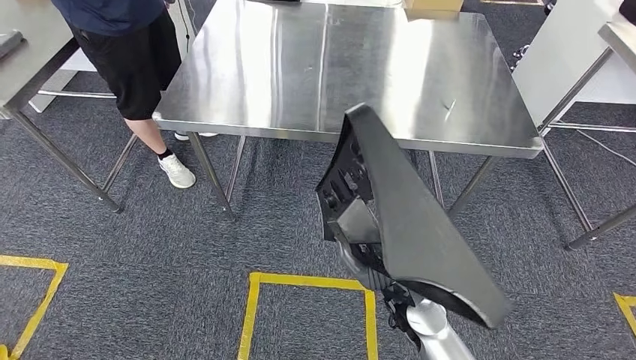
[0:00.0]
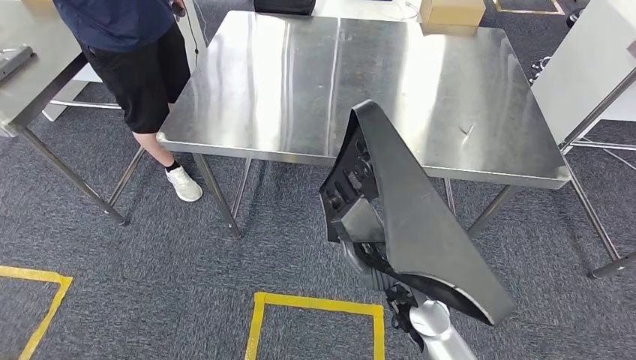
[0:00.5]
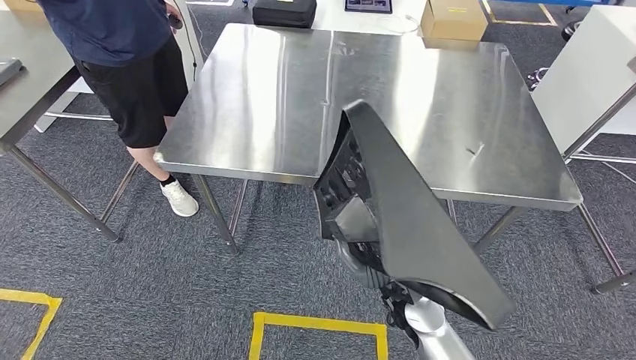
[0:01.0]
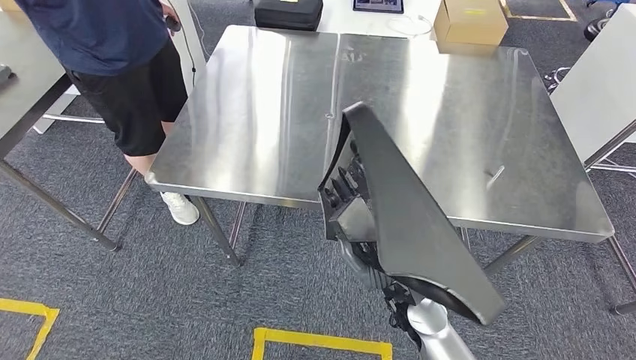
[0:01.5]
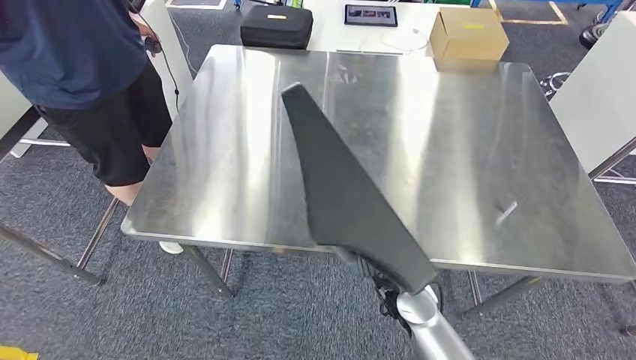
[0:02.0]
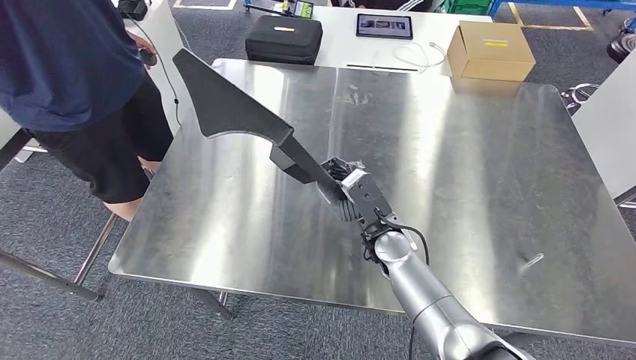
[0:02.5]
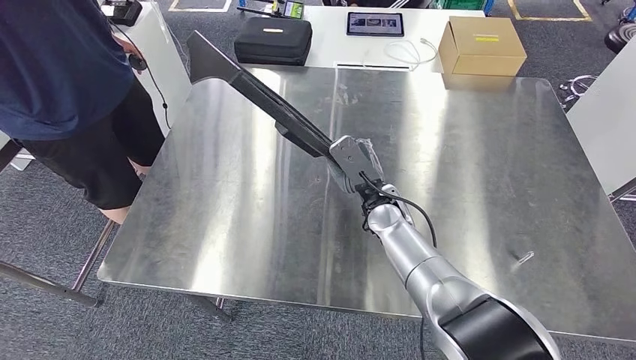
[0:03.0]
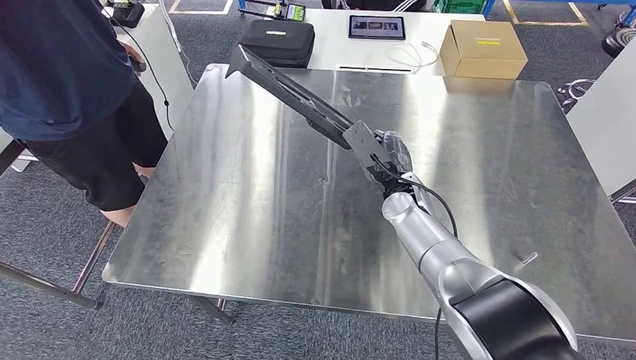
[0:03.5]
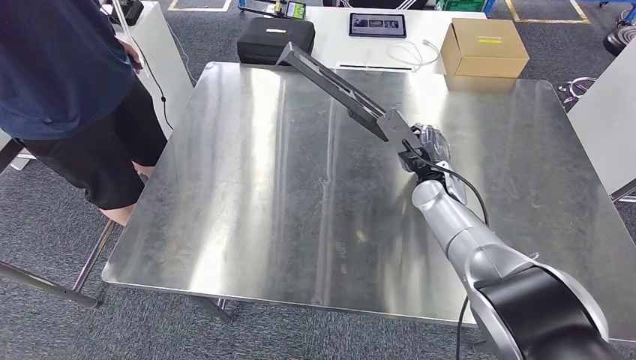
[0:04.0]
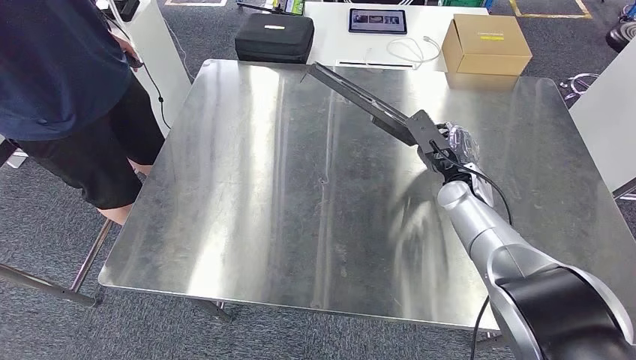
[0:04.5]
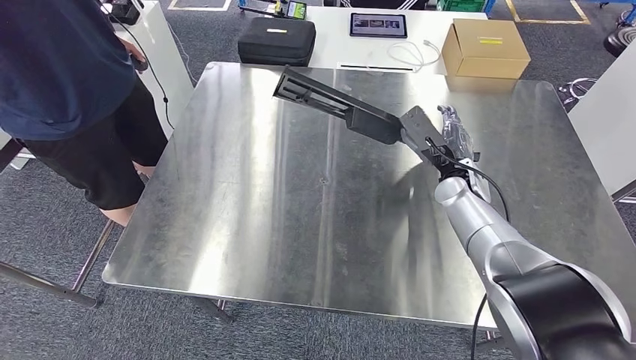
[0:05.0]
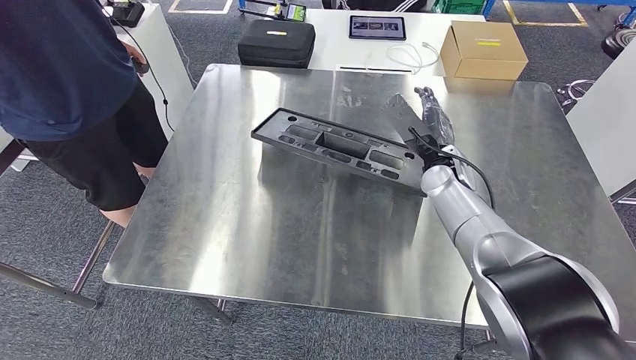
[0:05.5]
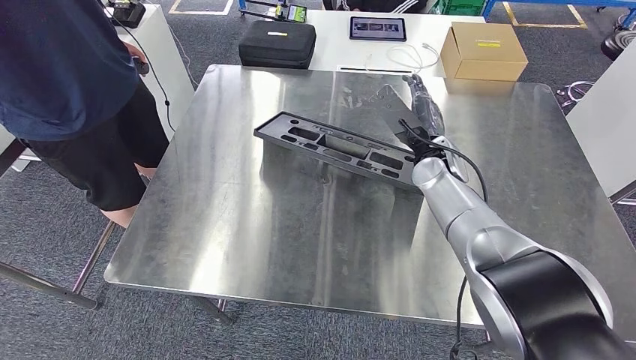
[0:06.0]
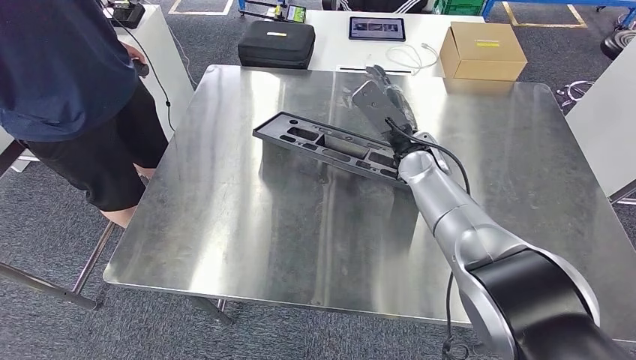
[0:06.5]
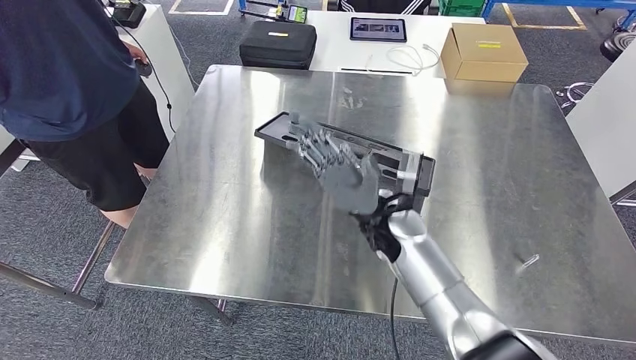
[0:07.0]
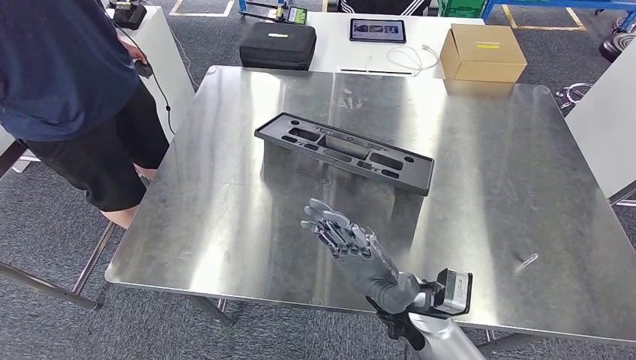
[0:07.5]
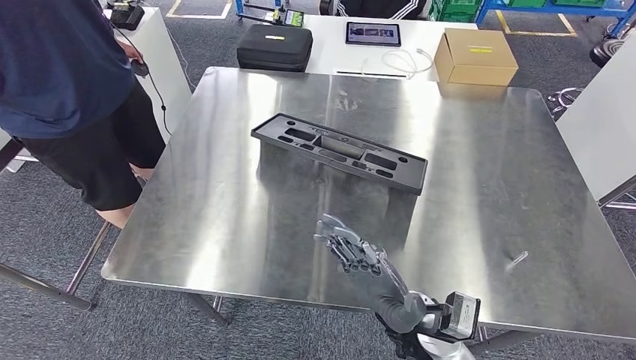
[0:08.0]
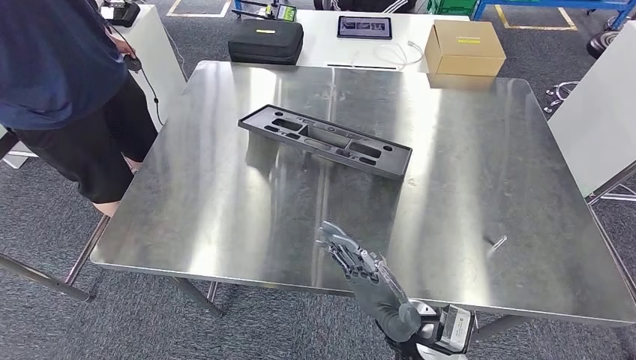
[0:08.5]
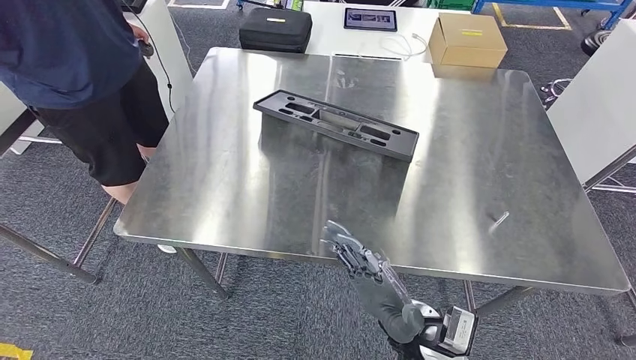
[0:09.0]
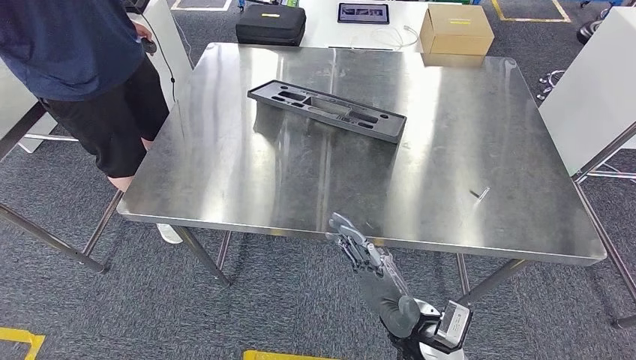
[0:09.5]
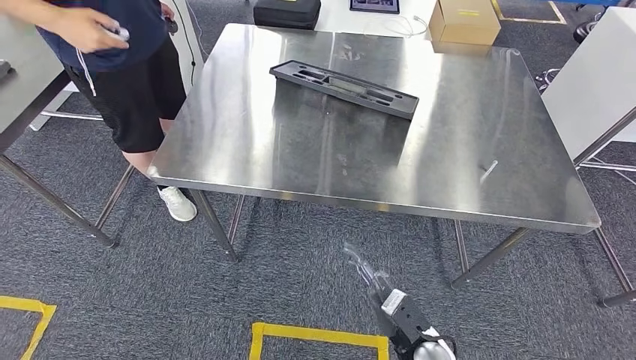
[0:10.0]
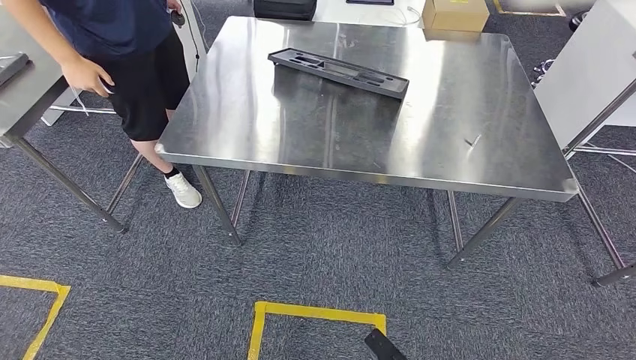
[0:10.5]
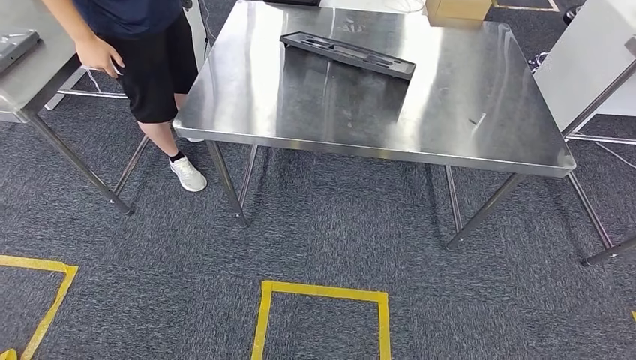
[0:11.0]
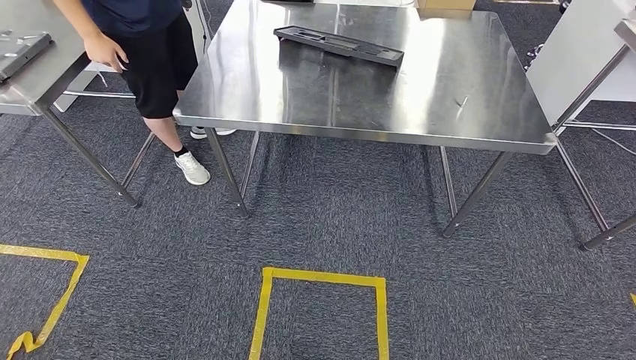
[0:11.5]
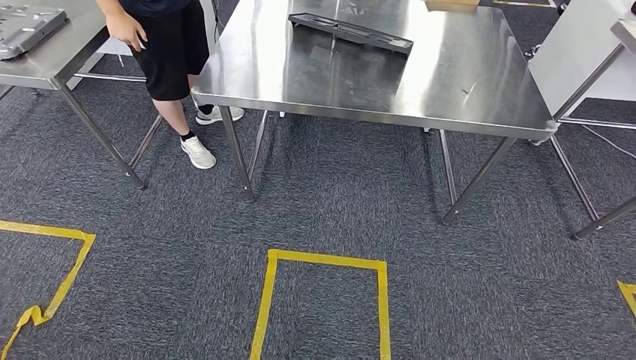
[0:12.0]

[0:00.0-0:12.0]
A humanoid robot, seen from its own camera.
Step, 0:02.0 to 0:08.5: Insert the large material into the corresponding slot on the workbench.
0:04.0 to 0:06.0: There are only small adjustments of the hands.

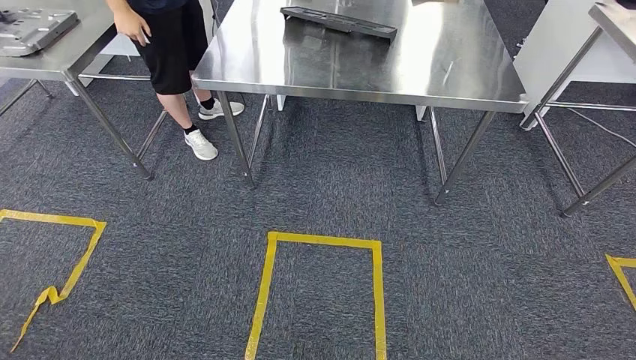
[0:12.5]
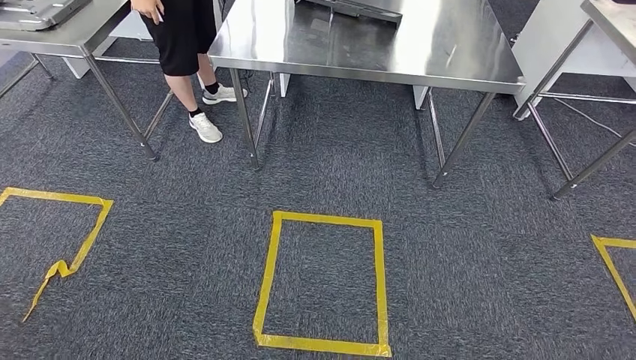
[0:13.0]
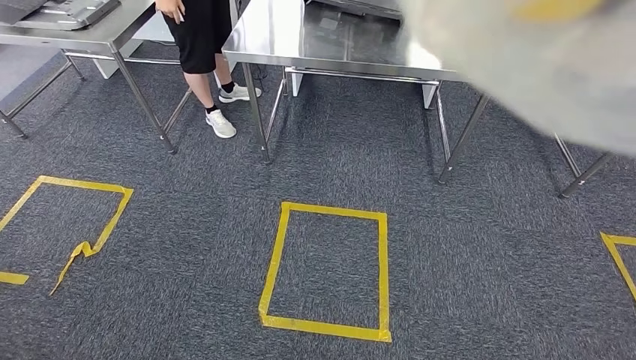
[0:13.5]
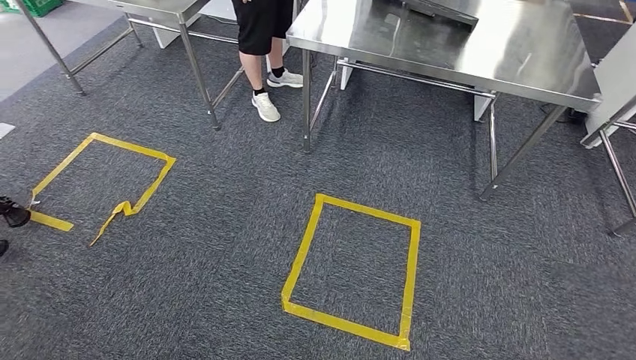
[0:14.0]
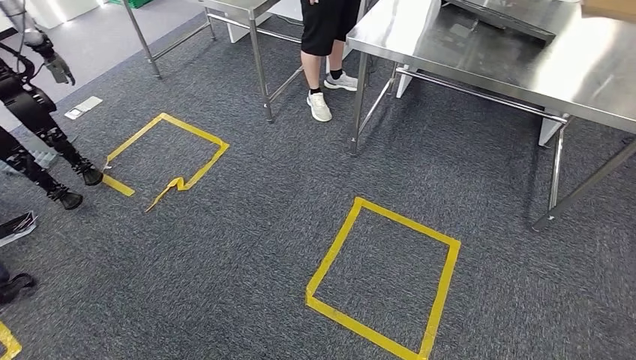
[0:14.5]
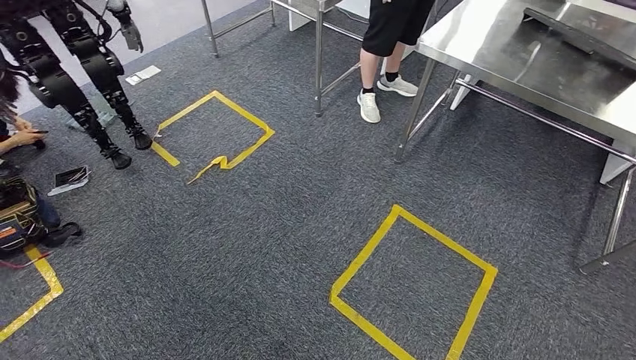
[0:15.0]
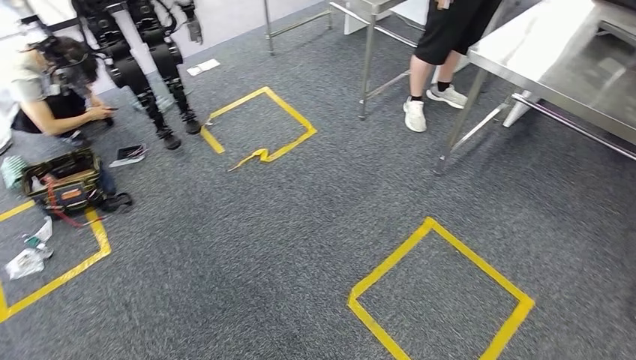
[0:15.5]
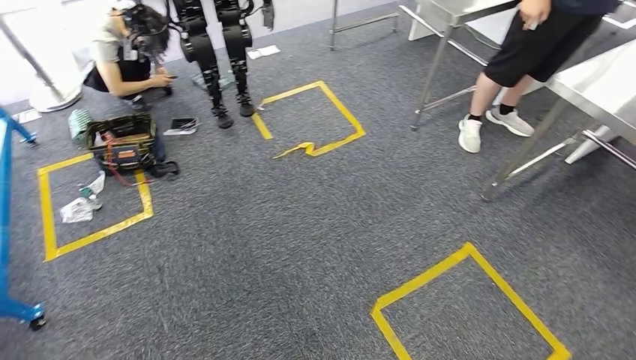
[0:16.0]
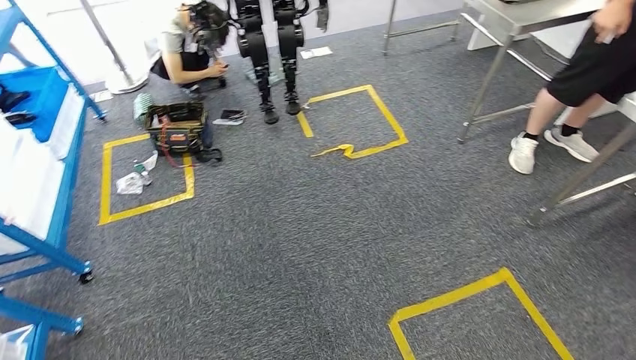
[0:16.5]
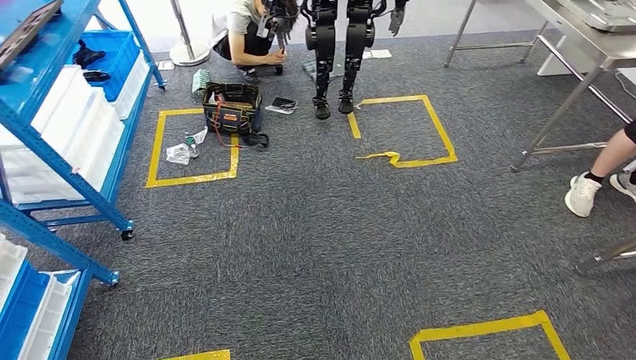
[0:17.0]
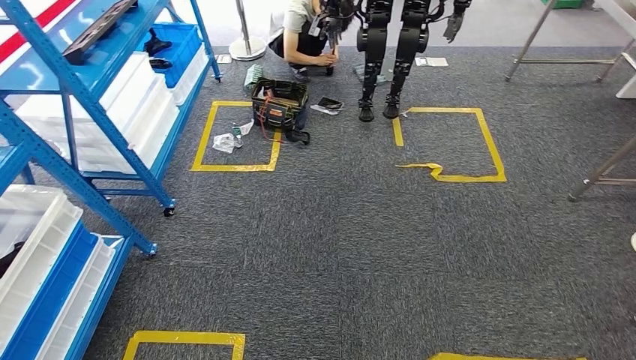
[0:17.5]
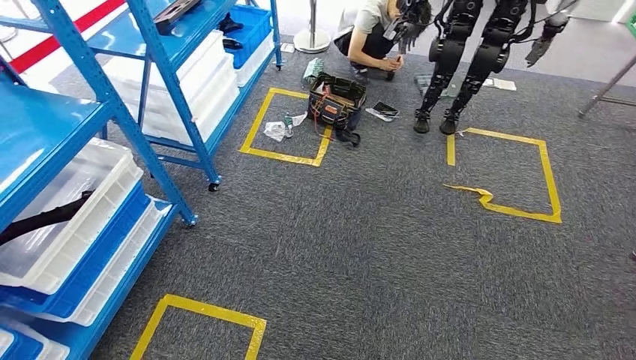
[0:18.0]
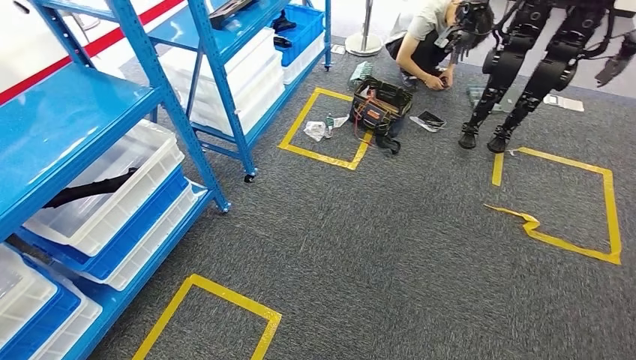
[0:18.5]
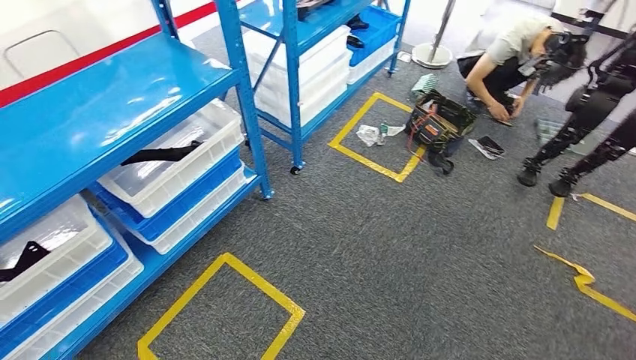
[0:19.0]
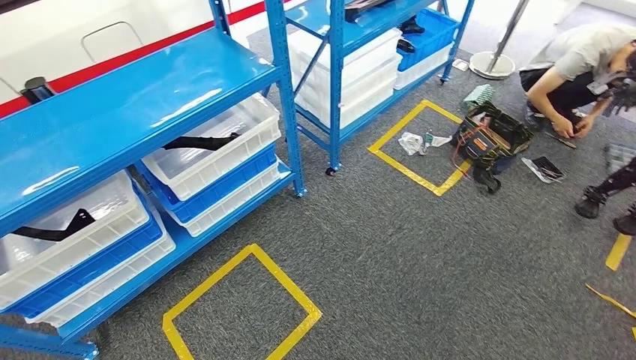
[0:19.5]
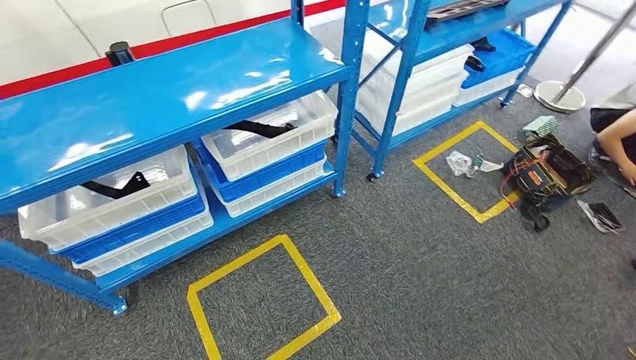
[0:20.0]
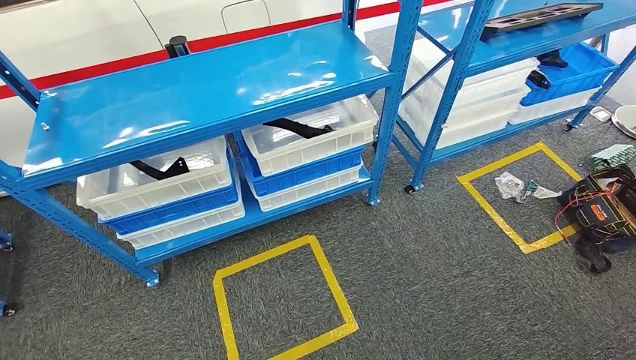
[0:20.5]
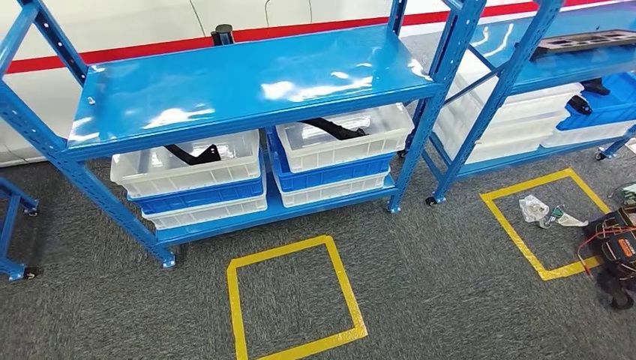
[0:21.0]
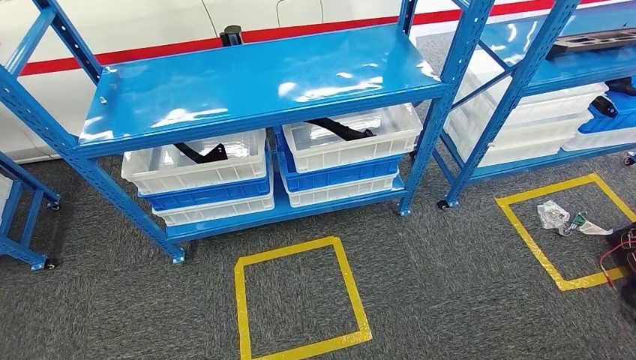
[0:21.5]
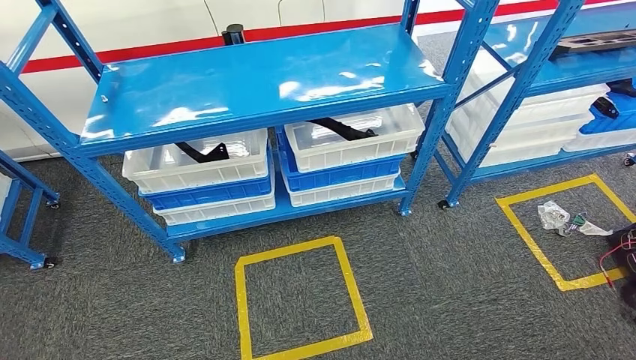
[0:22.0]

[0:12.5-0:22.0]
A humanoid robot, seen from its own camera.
Step, 0:12.5 to 0:22.0: Return to the initial position at the shelf.
